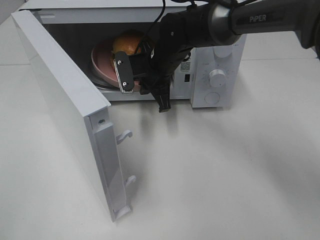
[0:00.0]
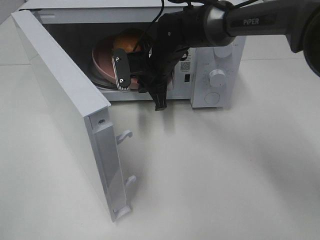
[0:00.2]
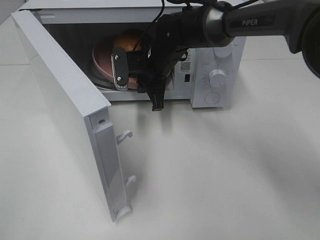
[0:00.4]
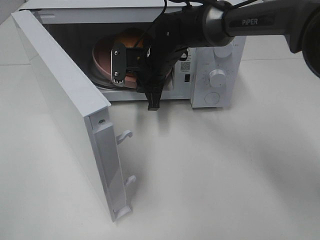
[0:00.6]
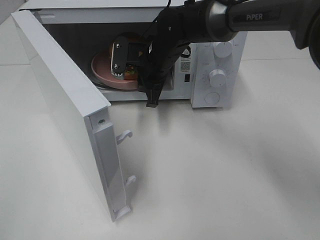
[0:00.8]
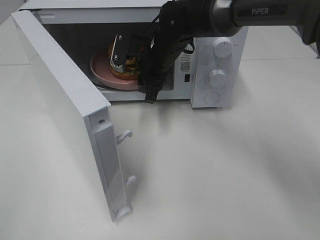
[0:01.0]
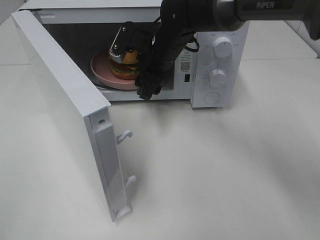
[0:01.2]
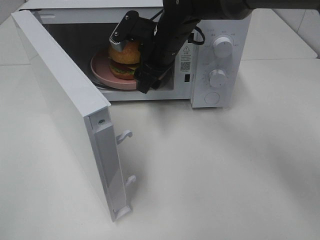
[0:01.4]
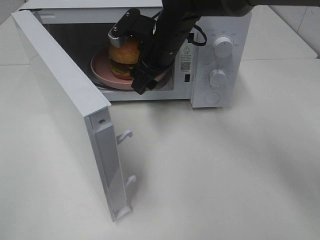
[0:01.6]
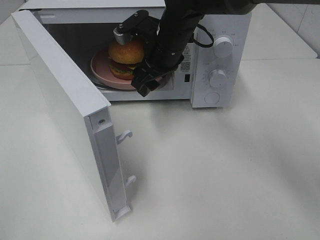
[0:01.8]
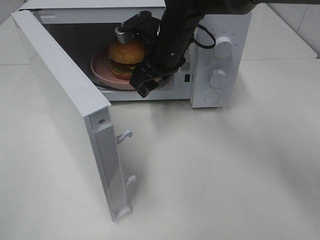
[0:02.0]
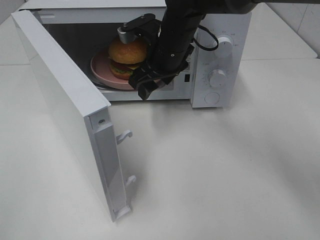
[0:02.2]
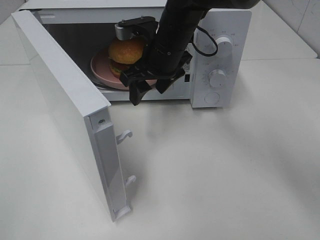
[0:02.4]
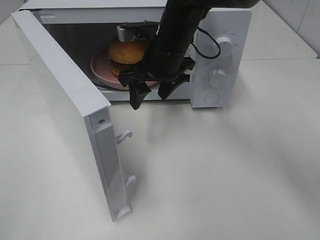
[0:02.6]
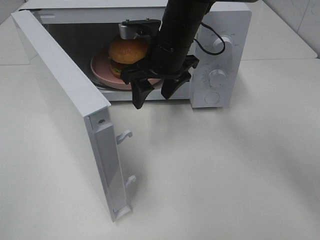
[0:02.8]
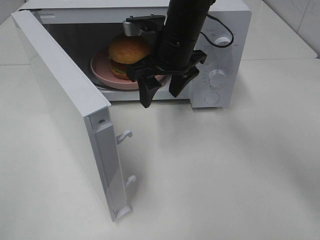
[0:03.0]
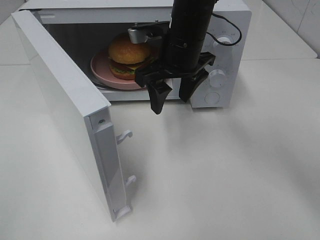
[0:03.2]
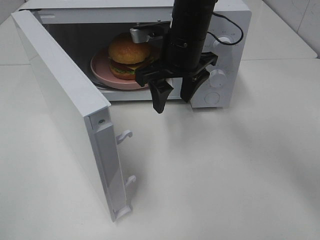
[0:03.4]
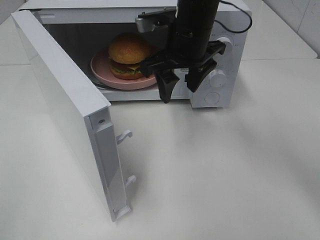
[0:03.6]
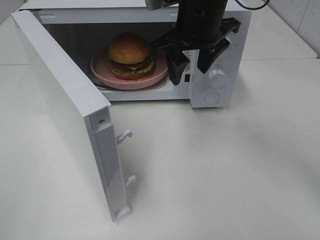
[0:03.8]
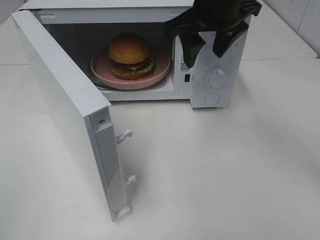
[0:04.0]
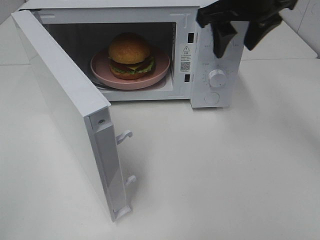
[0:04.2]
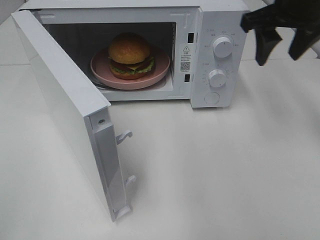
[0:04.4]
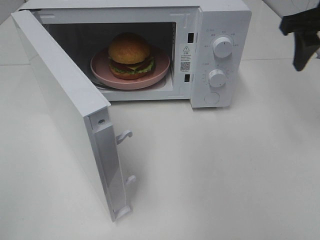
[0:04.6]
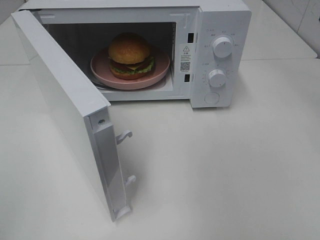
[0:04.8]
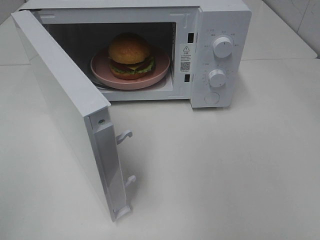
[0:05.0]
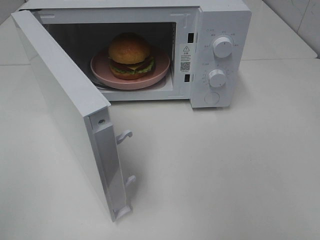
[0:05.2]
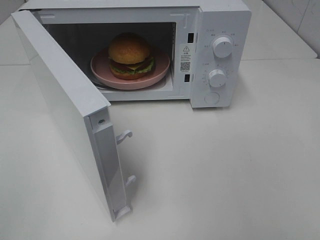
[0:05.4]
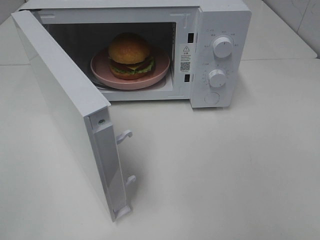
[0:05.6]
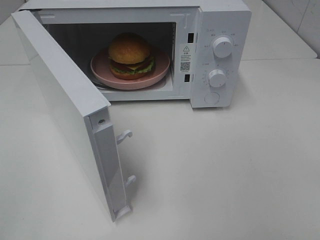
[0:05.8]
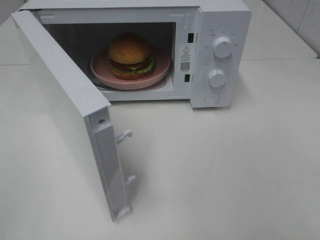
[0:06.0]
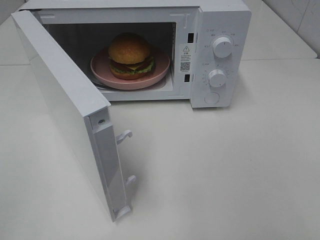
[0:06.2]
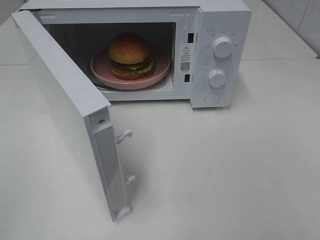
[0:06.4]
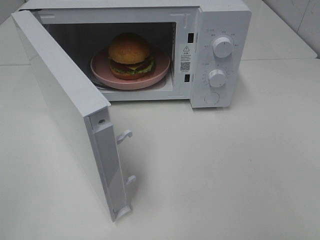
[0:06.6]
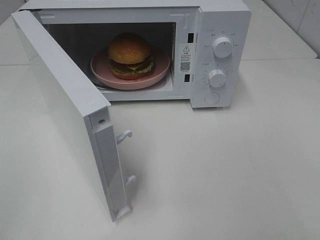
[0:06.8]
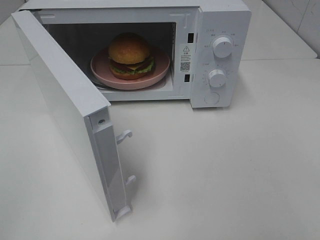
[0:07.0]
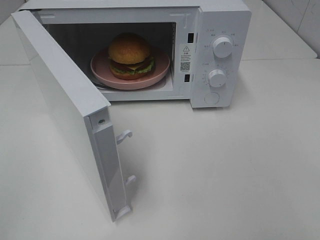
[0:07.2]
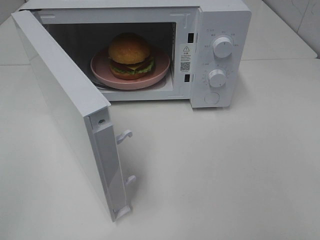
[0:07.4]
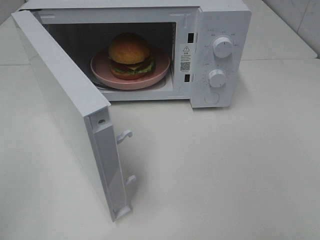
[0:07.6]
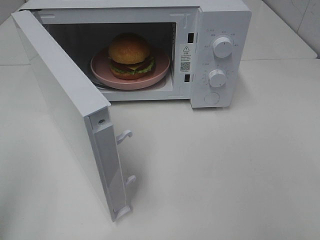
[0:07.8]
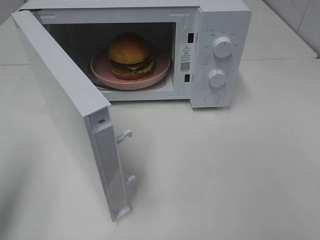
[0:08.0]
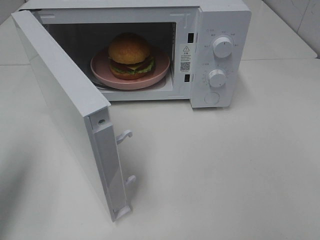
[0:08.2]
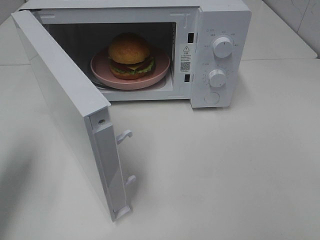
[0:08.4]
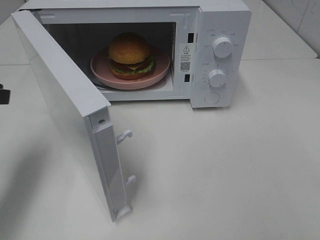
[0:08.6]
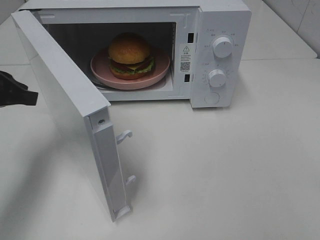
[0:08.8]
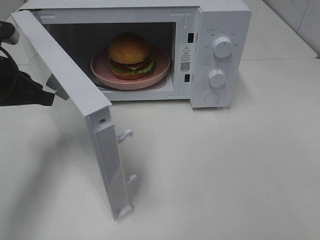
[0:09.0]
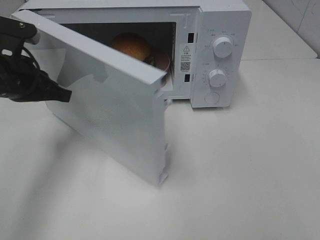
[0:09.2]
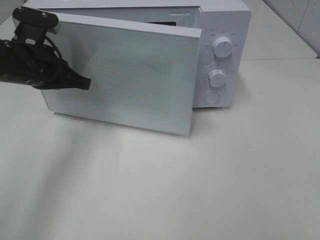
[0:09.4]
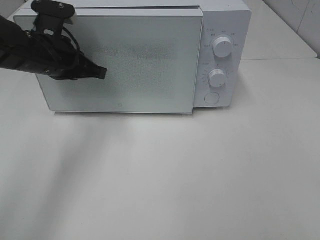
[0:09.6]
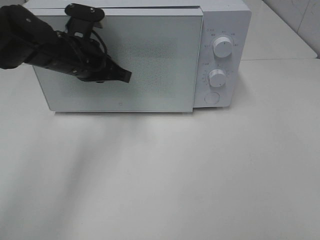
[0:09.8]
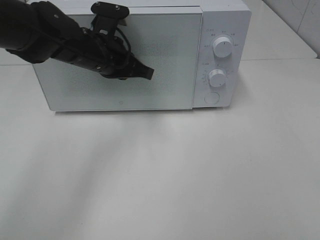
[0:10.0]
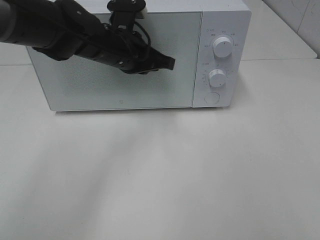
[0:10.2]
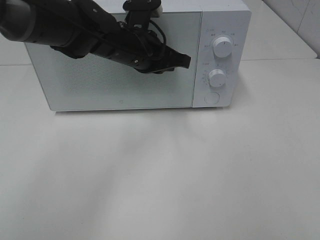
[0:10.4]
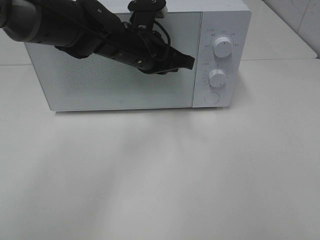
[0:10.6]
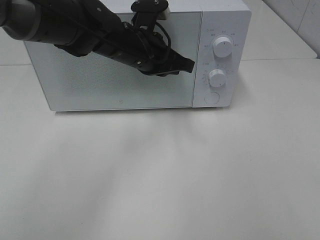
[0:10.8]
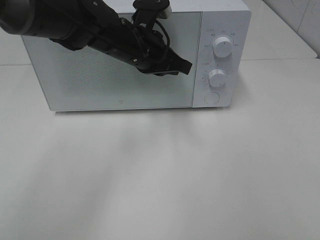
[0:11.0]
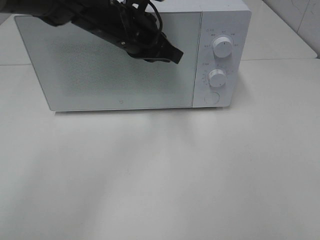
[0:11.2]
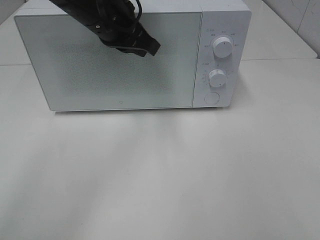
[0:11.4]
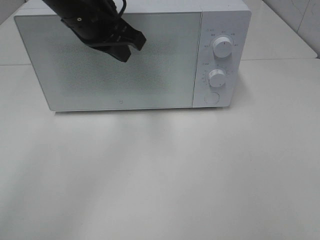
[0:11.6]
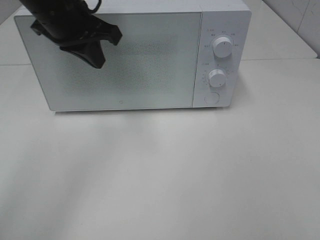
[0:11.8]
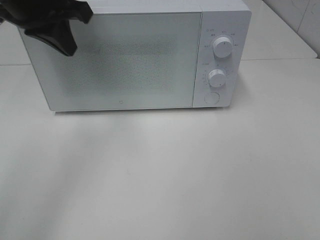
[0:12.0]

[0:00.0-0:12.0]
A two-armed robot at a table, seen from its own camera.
Task of the whole recording: Heat the burger.
Step, 0:00.8 to 0:10.4: Left hand: close the microwave door.
0:00.0 to 0:01.6: The right gripper ends up about 5 cm from where it was, and opens its fingers.
0:03.0 to 0:04.4: The right gripper is displaced to the right and upward by approximately 20 cm.
0:04.4 to 0:06.0: The right gripper moves backward, approximately 30 cm.
0:07.6 to 0:09.0: The left gripper goes some 25 cm forward.
0:09.0 to 0:10.4: The left gripper heads to the right and forward, covering about 20 cm.
0:10.4 to 0:12.0: The left gripper travels to the left and upward by approximately 20 cm.

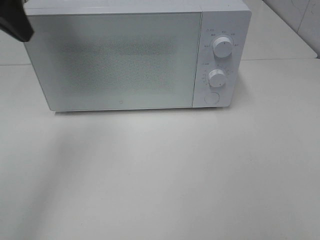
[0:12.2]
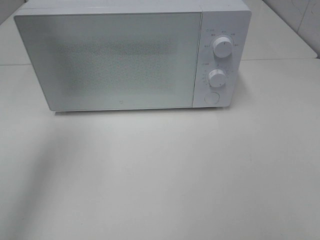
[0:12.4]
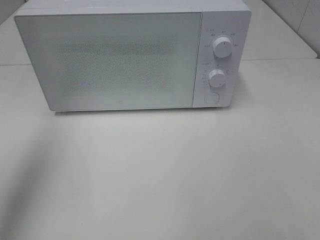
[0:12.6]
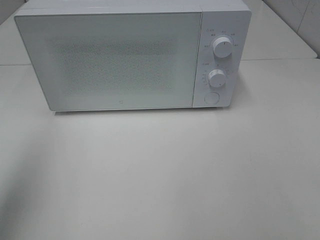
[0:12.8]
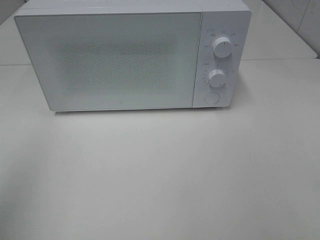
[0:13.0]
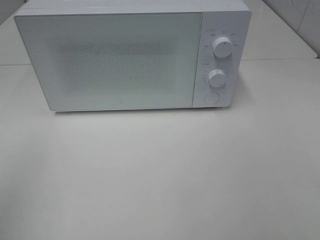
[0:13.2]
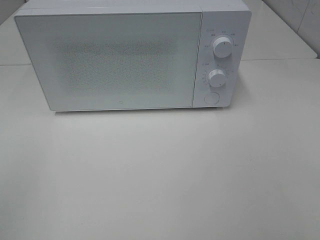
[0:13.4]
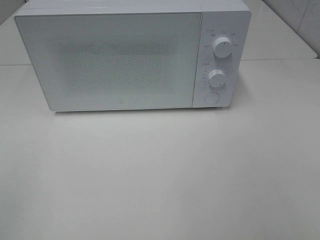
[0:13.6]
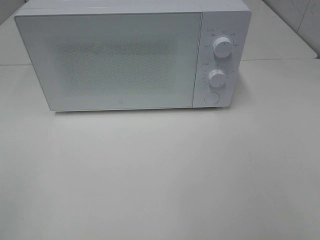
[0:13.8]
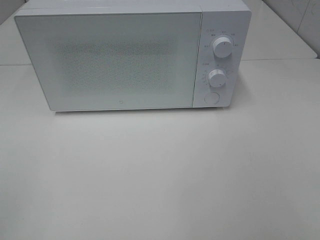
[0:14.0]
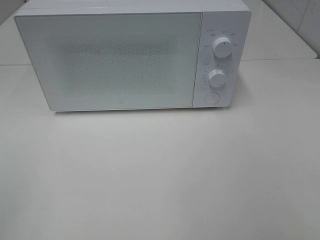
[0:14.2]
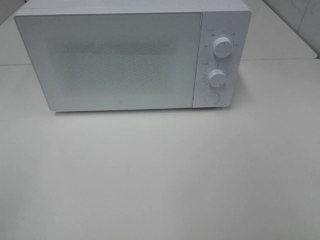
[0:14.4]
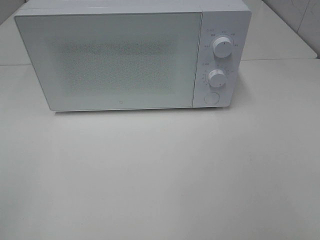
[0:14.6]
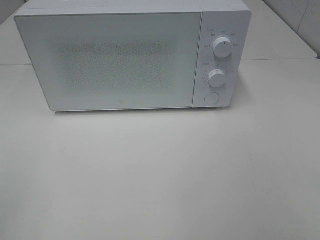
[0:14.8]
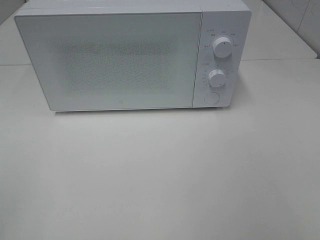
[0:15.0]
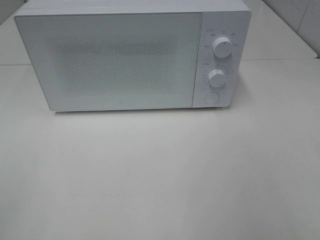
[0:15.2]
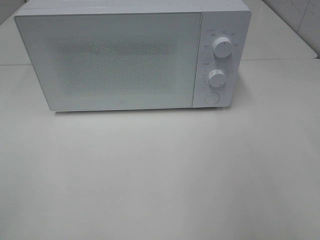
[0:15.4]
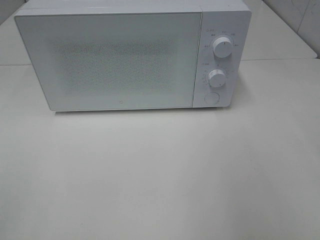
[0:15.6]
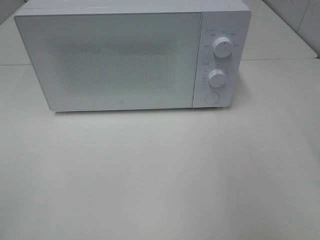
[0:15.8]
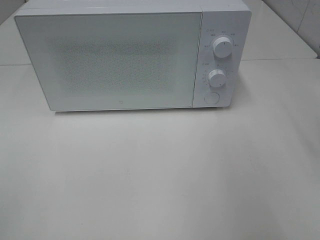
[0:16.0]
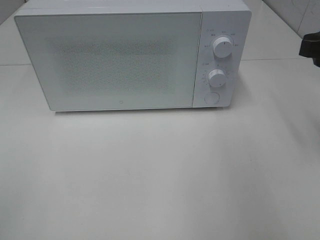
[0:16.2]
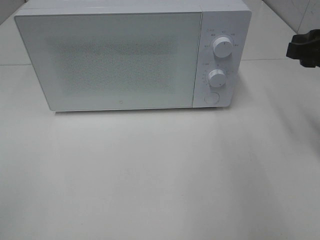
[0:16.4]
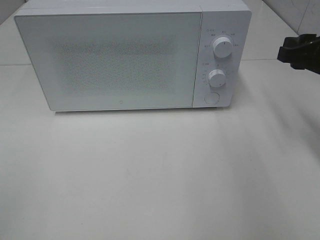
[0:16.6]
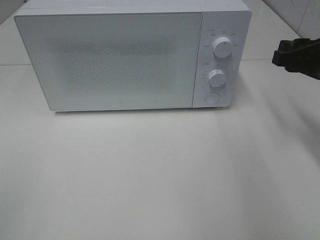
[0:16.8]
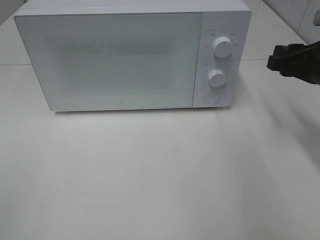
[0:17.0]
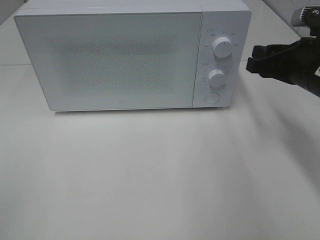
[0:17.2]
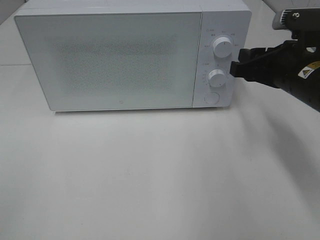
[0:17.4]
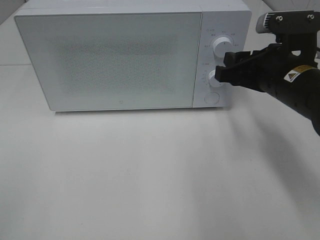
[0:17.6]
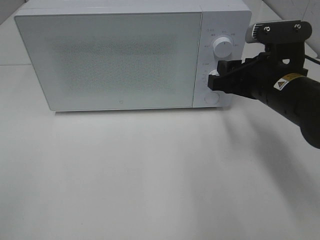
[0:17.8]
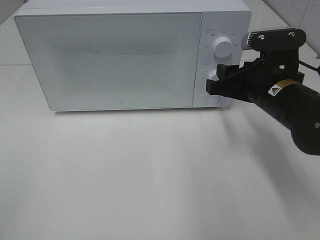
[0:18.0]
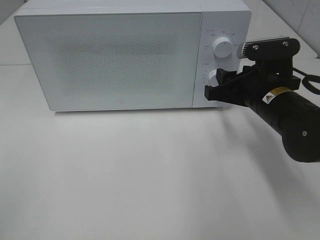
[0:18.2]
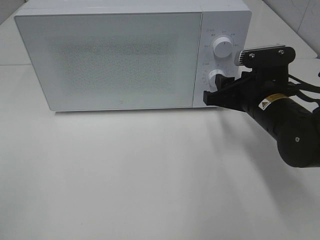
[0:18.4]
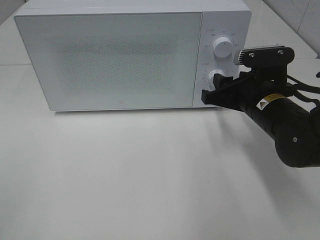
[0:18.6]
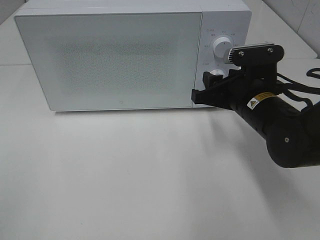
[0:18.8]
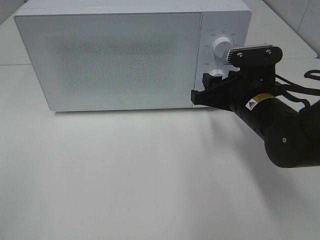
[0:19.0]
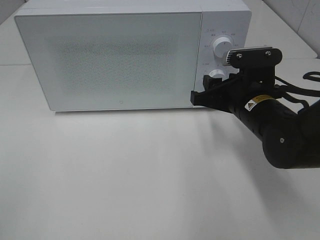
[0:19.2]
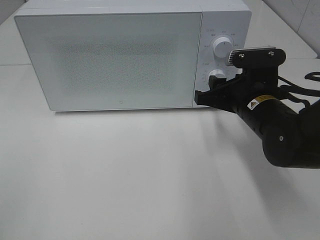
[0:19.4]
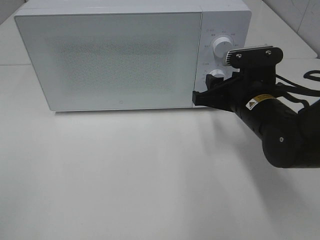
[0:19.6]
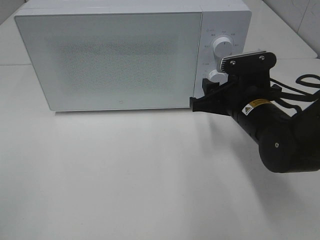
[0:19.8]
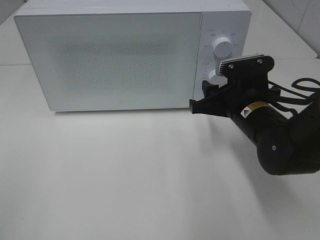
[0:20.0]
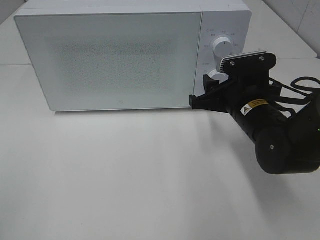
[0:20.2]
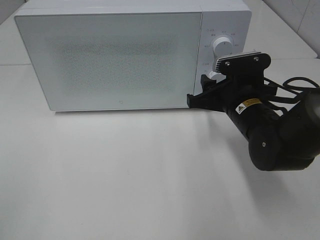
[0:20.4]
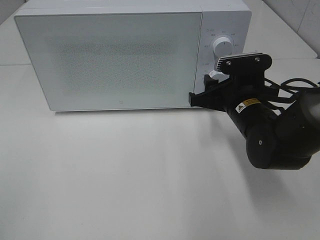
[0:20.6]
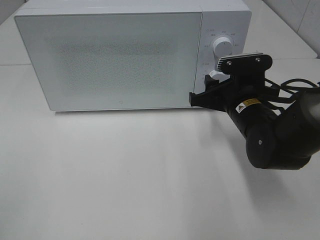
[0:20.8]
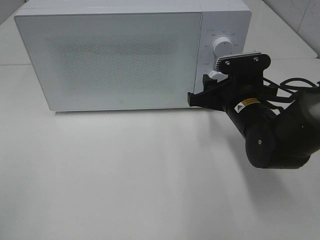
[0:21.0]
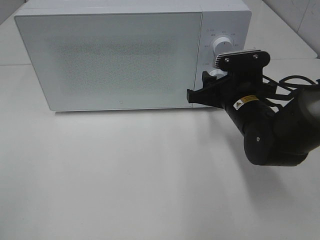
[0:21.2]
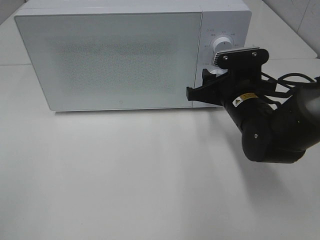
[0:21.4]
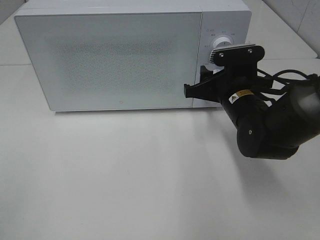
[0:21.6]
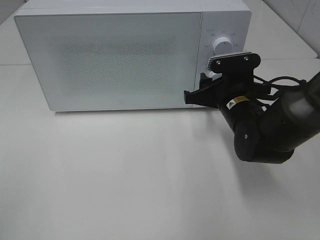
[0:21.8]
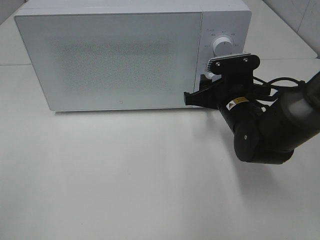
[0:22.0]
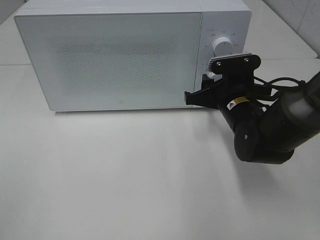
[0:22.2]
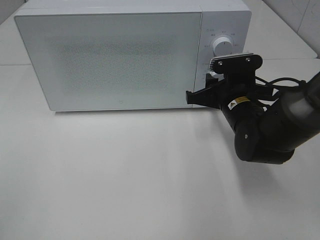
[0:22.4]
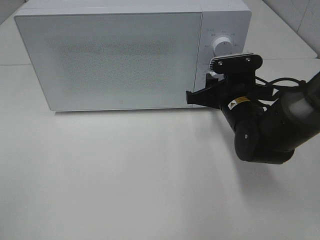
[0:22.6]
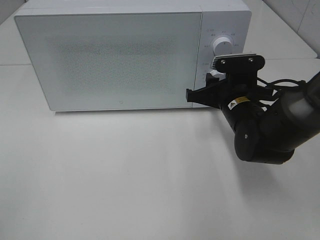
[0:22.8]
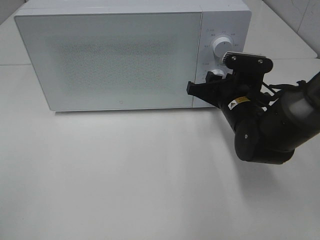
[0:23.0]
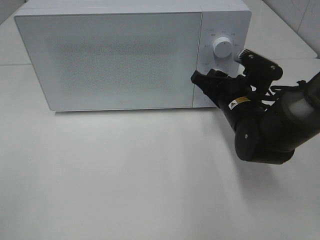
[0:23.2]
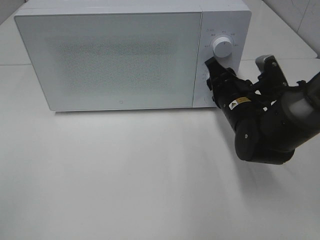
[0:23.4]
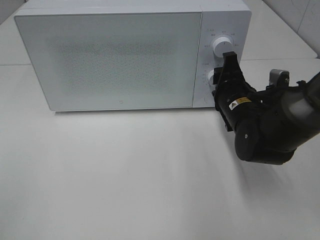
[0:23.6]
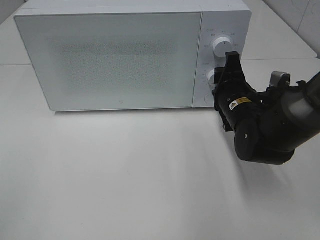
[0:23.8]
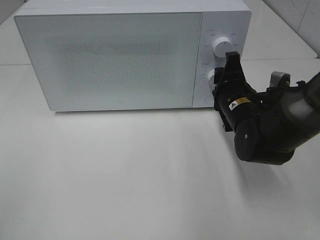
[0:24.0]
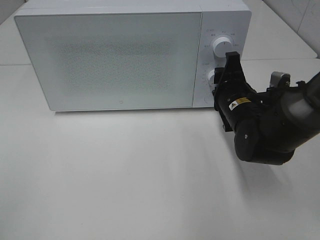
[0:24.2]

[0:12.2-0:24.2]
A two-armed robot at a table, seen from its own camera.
Task of the whole recording: Heat the burger.
0:12.2 to 0:13.8: The left gripper shifts roughly 30 cm backward.
0:15.2 to 0:16.6: The right gripper heads forward and downward, covering approximately 25 cm.
0:16.6 to 0:18.2: The right gripper heads to the left and downward, covering roughly 10 cm.
0:18.2 to 0:21.2: The grippers stay close to where they were, moving slightly.
0:21.2 to 0:22.6: The grippers stay close to where they were, moving slightly.
